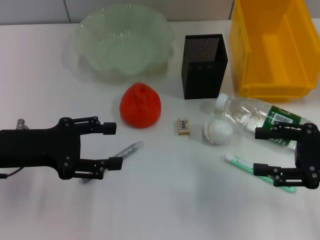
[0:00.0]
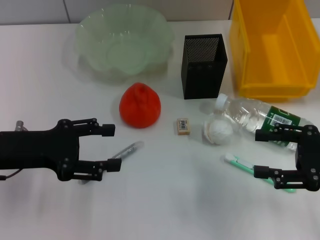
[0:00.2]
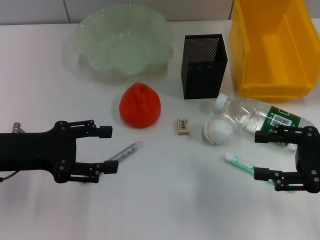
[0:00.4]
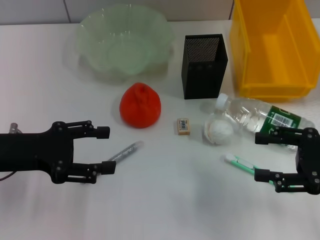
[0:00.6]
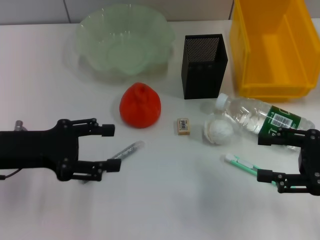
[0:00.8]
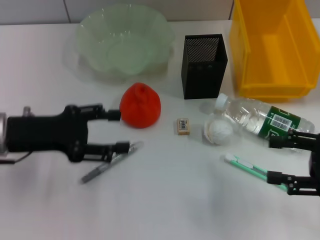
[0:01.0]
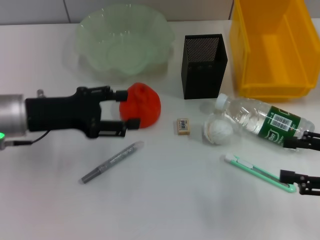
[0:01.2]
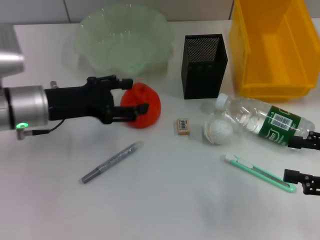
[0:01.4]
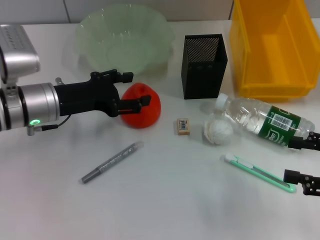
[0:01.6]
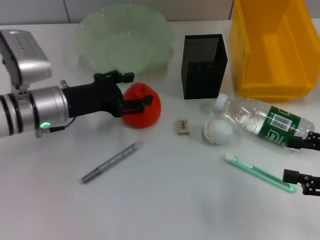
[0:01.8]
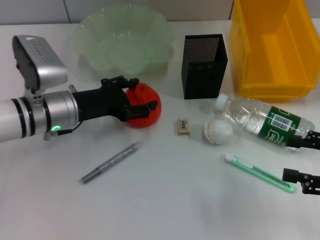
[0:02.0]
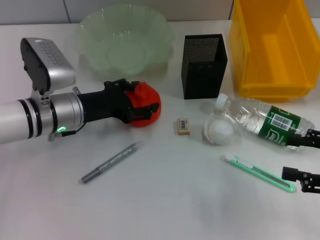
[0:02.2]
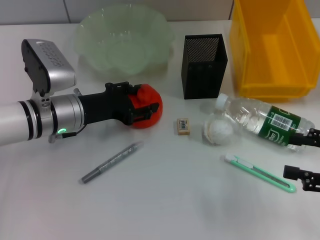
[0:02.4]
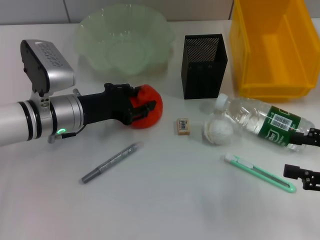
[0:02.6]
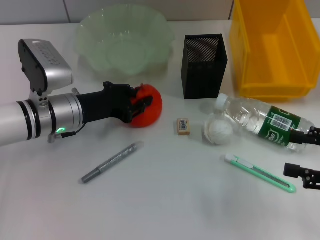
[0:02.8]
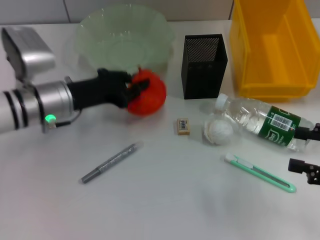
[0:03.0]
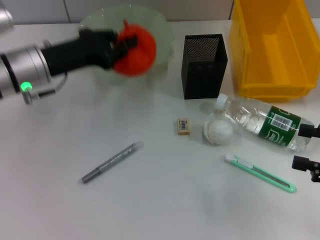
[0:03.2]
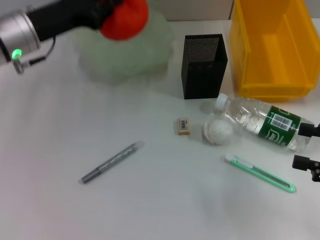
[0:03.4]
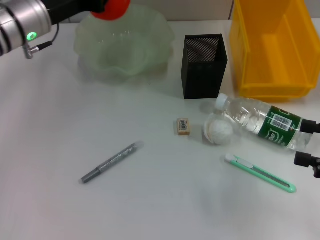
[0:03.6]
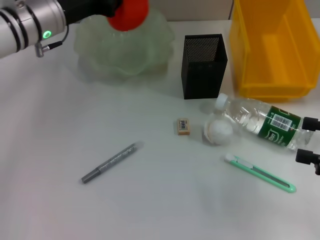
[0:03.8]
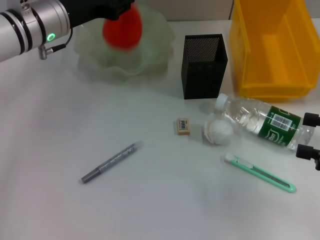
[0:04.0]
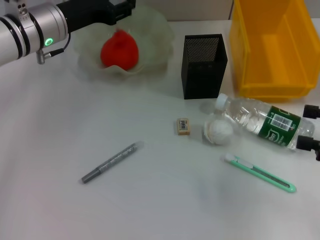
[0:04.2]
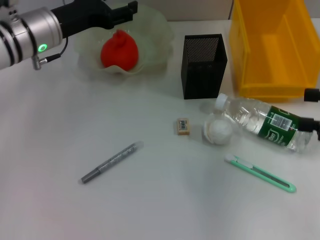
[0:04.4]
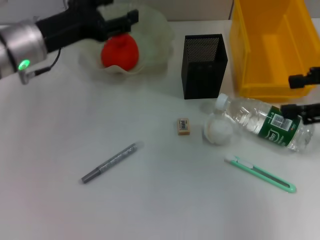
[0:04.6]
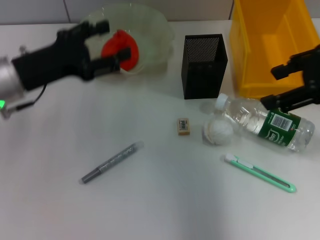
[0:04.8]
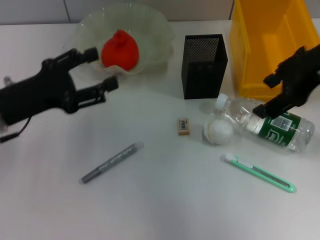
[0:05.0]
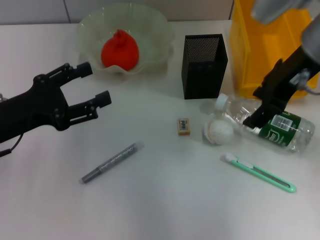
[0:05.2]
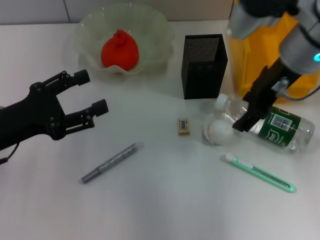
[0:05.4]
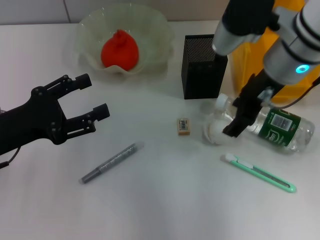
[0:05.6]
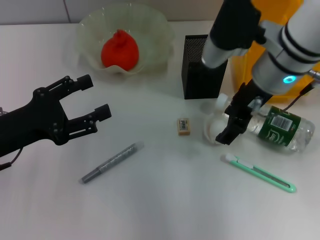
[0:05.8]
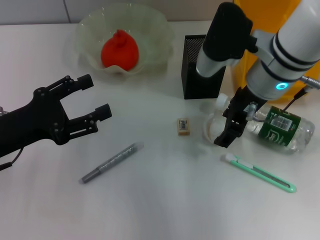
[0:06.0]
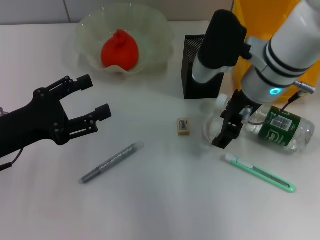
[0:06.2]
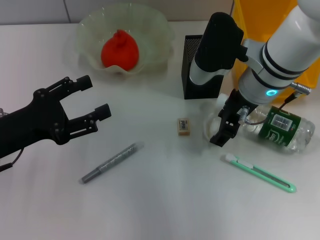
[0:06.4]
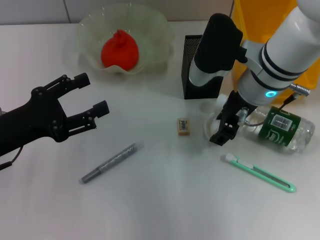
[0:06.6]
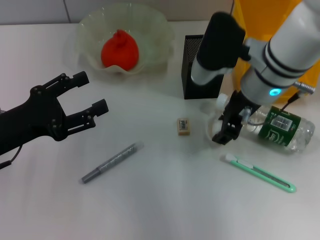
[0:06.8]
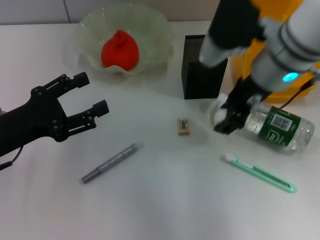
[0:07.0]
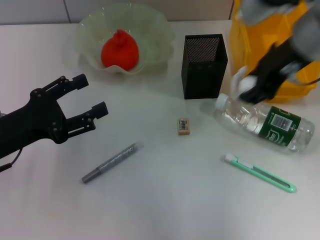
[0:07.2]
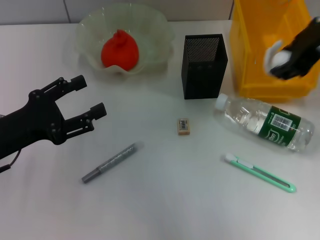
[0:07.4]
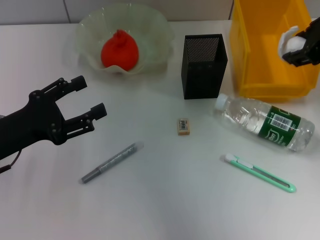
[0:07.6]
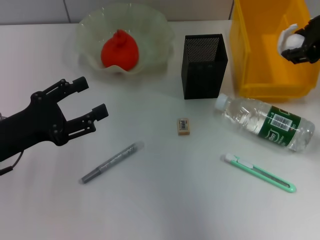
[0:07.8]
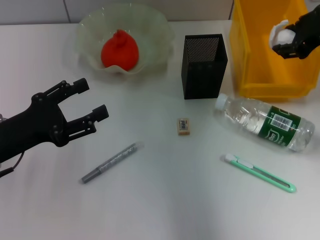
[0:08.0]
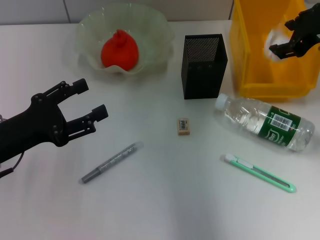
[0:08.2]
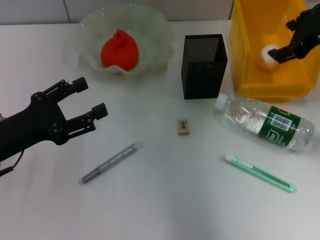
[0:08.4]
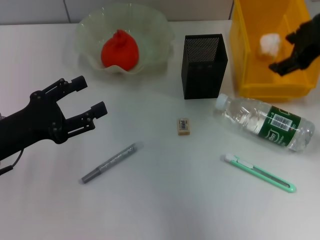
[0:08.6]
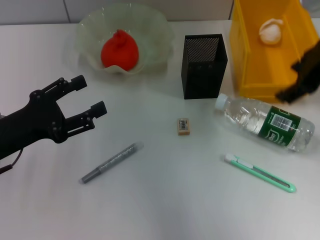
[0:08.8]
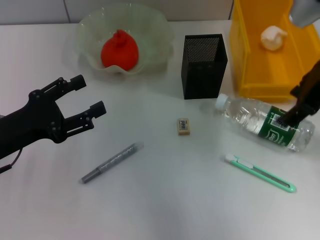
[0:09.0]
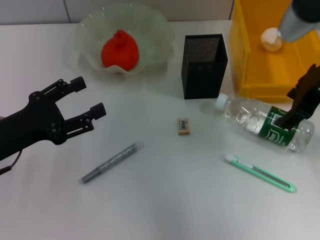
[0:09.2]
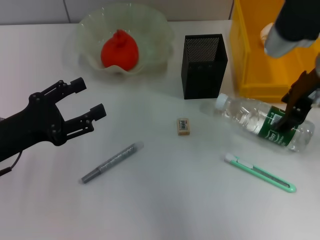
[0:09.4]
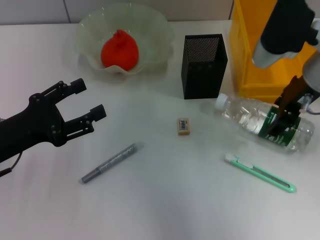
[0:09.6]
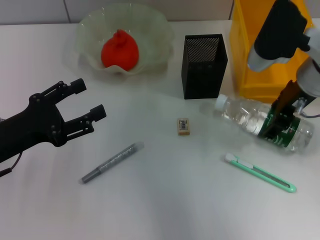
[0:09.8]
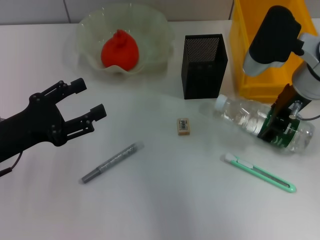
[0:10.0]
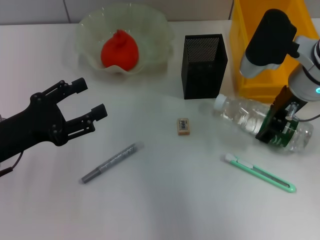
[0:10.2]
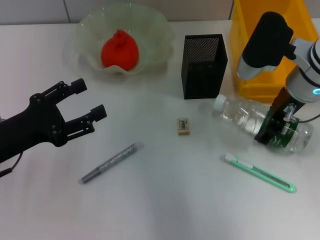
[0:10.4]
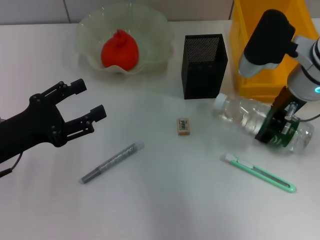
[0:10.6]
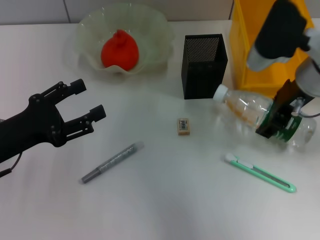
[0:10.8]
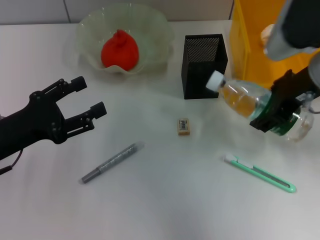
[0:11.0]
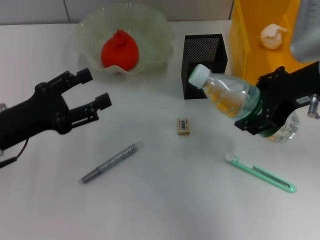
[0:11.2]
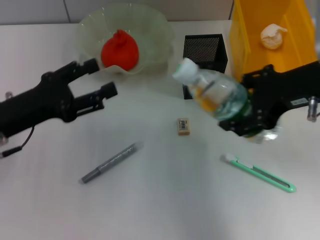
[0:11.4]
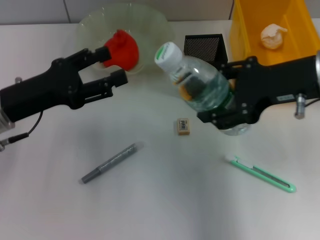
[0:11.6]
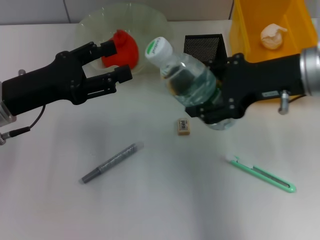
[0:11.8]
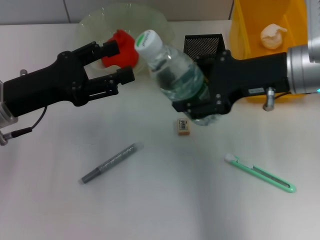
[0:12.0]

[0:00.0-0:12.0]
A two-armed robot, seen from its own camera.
Step, 0:00.0 to 0:02.4: Grab the orange with the left hand.
Step, 0:02.8 to 0:04.6: Place the orange into the fruit bowl with the left hand.
Step, 0:04.8 to 0:06.4: Grab the paper ball with the right hand.
Step, 0:06.6 to 0:08.4: Place the paper ball into the trash can with the right hand.
Step, 0:08.8 to 0:09.6: Grab the water bottle with the right hand.
0:00.0 to 0:01.6: The left gripper shifts some 5 cm forward.
0:01.6 to 0:03.0: The left gripper closes.
0:03.0 to 0:04.4: The right gripper shifts about 5 cm upward; the left gripper goes about 10 cm upward and forward, and opens up.
0:04.4 to 0:06.0: The left gripper heads backward and to the left, covering roughly 20 cm, and opens. The right gripper heads to the left and forward, covering roughly 25 cm.
0:06.0 to 0:07.6: The right gripper heads to the right and upward, covering about 15 cm, and closes its fingers.
0:07.6 to 0:09.0: The right gripper opens up.
0:09.0 to 0:10.4: The right gripper moves downward, about 10 cm.
0:10.4 to 0:12.0: The left gripper changes place by approximately 5 cm.

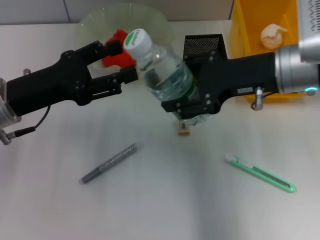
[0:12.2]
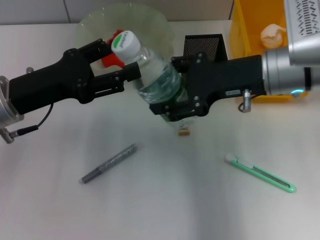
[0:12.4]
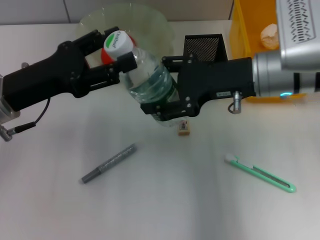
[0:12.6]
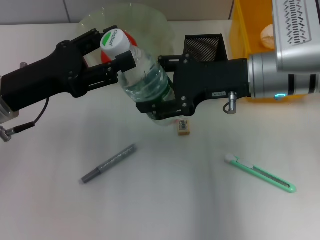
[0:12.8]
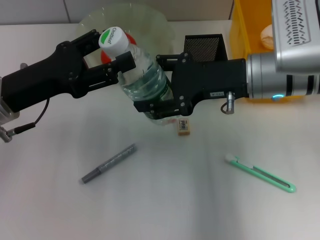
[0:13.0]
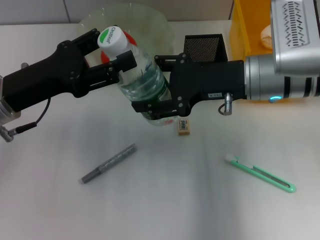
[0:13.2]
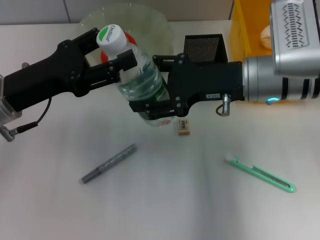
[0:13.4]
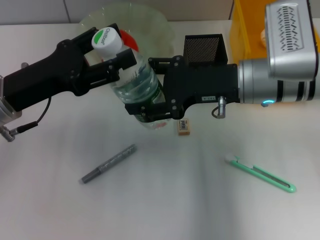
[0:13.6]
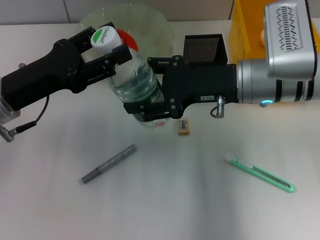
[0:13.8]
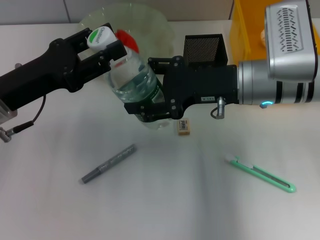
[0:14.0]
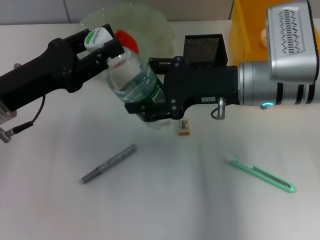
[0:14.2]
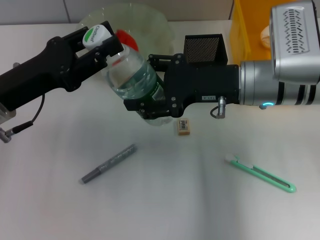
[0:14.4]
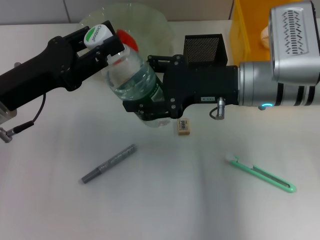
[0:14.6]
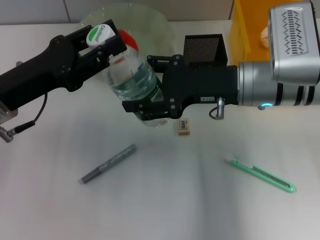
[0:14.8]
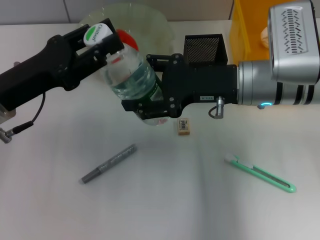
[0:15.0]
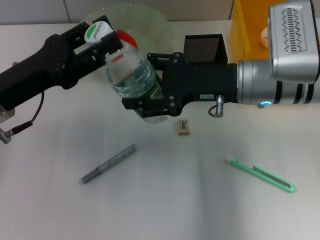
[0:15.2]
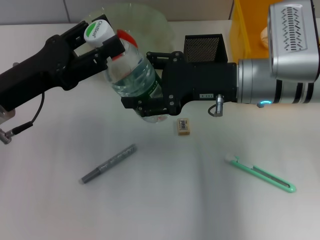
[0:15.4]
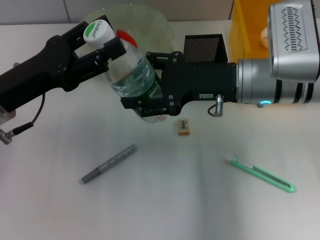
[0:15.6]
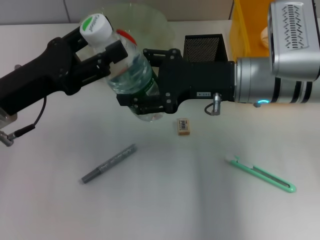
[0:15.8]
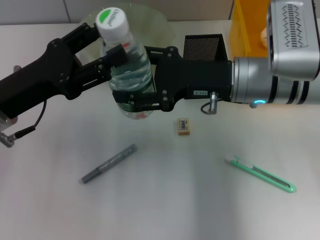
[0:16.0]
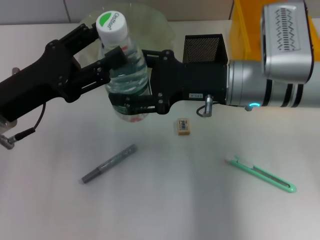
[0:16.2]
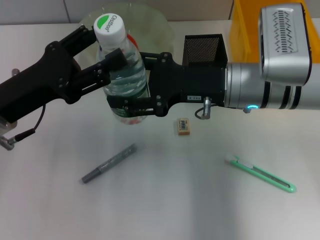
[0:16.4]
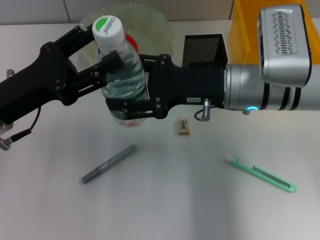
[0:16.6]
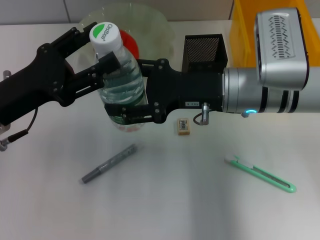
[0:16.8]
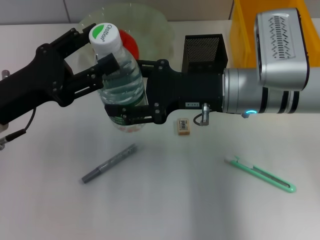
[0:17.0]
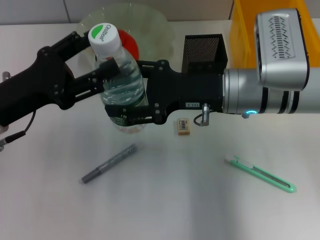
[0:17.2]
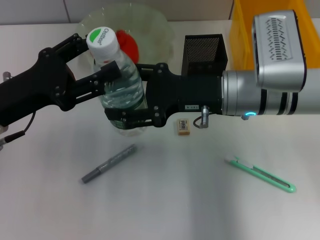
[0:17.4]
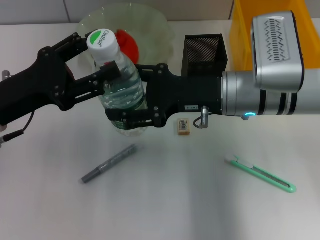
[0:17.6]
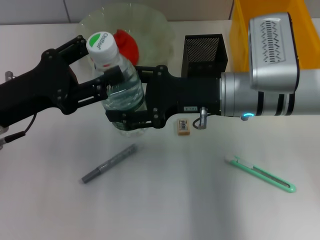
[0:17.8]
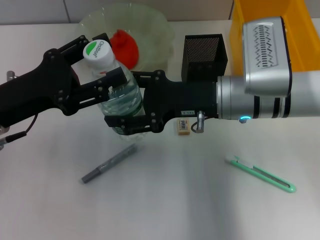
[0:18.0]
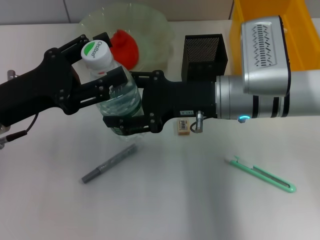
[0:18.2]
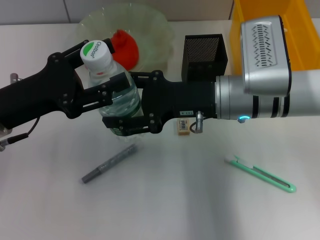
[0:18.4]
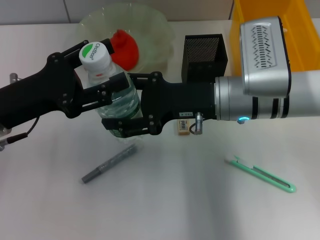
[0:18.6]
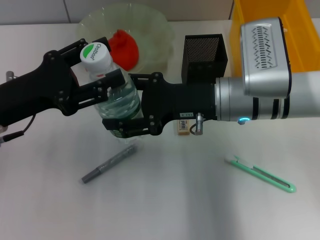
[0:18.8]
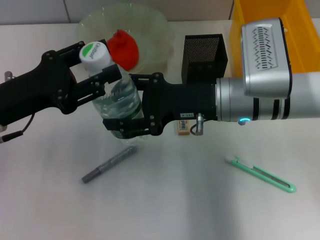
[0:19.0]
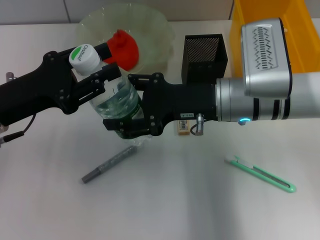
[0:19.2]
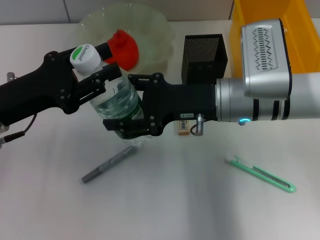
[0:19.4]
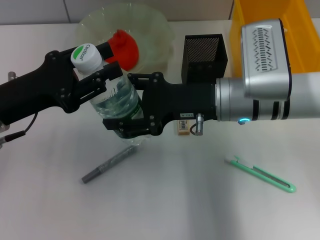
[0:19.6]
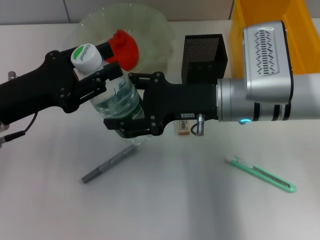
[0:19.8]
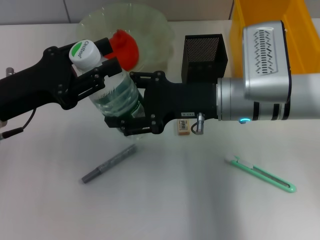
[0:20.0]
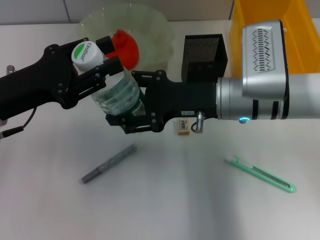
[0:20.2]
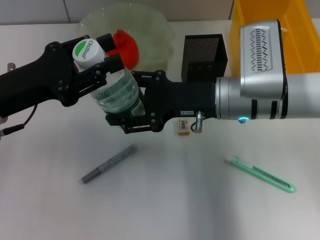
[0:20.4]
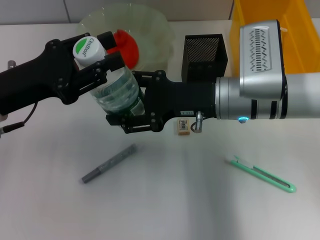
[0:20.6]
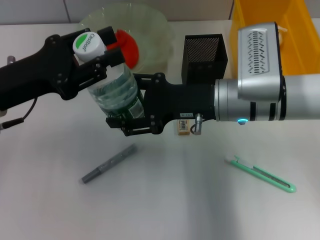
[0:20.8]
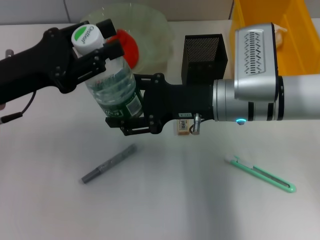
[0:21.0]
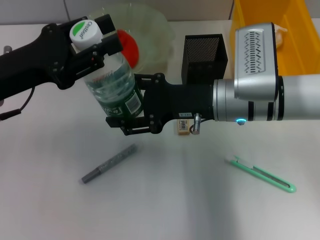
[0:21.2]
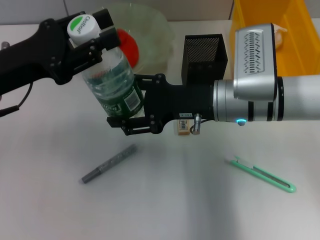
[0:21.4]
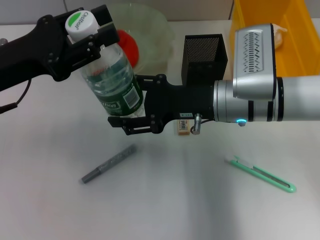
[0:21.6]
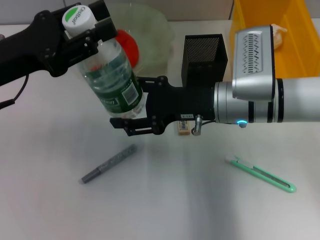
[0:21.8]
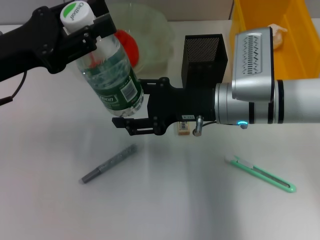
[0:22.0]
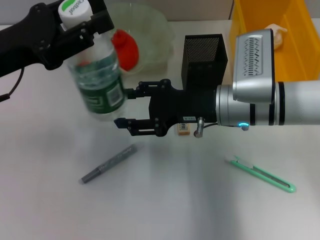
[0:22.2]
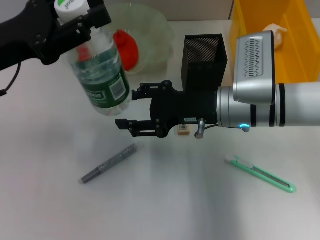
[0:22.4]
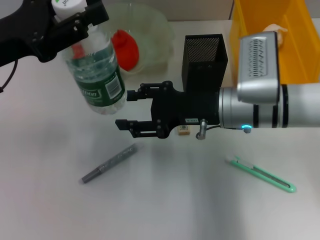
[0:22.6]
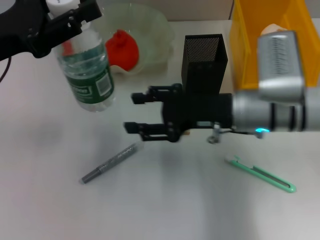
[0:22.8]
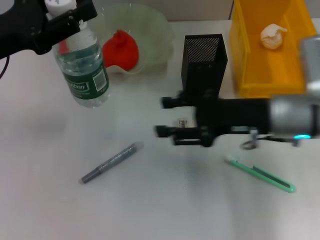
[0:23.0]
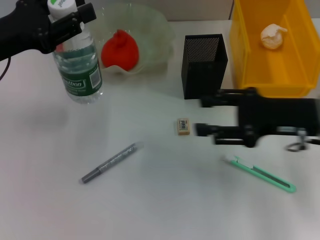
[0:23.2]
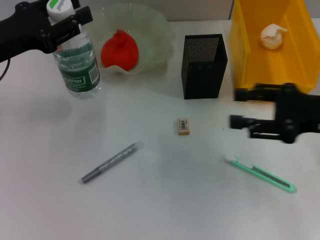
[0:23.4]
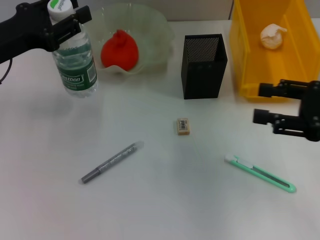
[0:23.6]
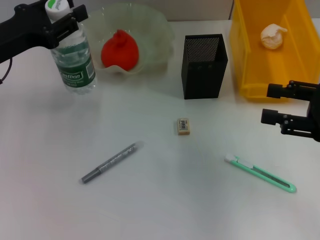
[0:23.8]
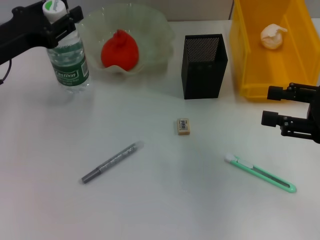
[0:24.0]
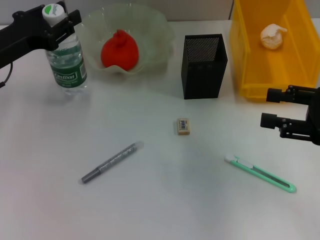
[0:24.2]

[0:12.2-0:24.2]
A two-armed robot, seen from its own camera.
Step, 0:12.2 to 0:22.4: Pass the water bottle from the right hand to the left hand.
0:12.2 to 0:13.8: The right gripper moves about 5 cm.
0:13.8 to 0:15.2: The left gripper closes its fingers.
0:15.2 to 0:16.6: The left gripper opens up.
0:18.2 to 0:19.8: The left gripper closes its fingers.
0:19.8 to 0:21.2: The grippers move only a little.
0:22.6 to 0:24.2: The left gripper ends up approximately 5 cm from where it was. Meanwhile the right gripper moves to the right, roughly 20 cm.
